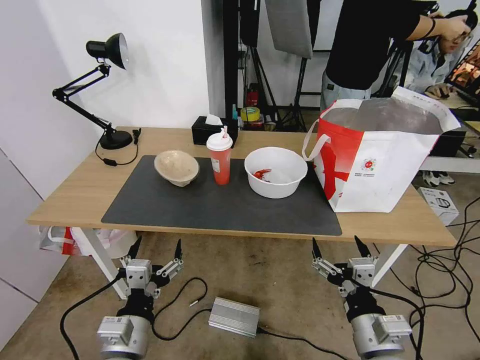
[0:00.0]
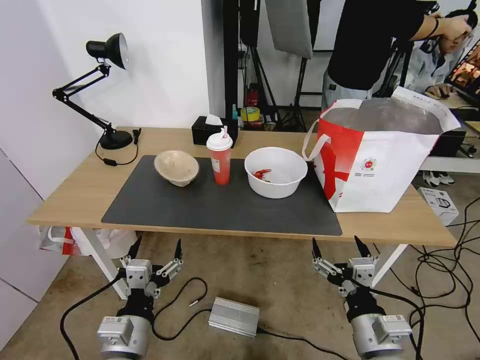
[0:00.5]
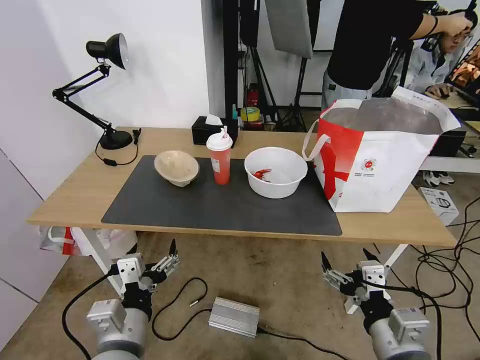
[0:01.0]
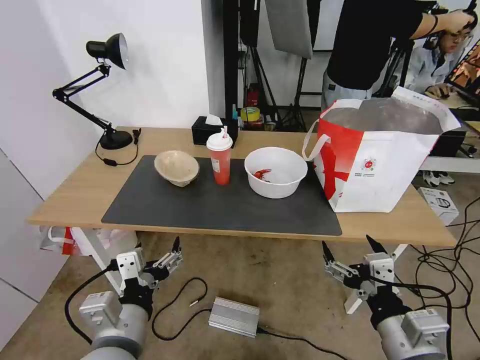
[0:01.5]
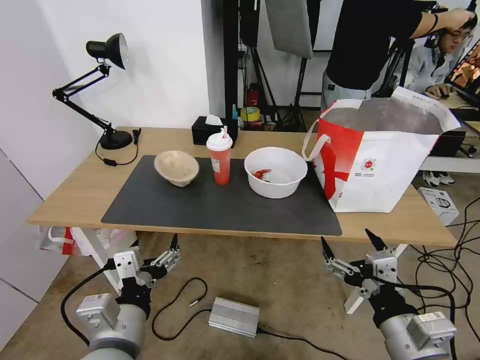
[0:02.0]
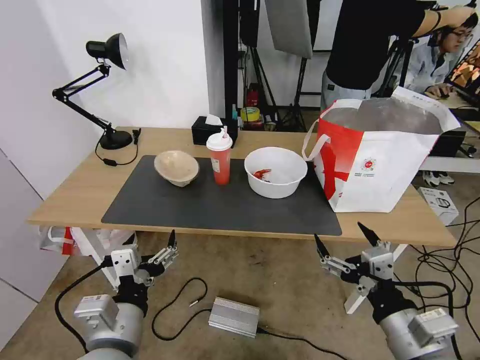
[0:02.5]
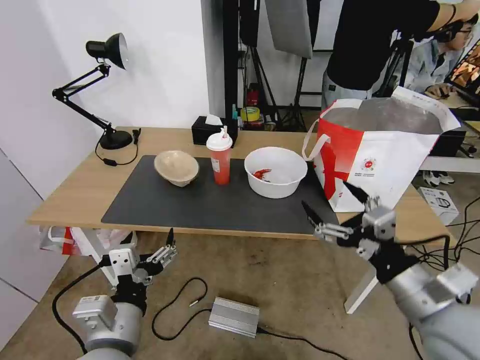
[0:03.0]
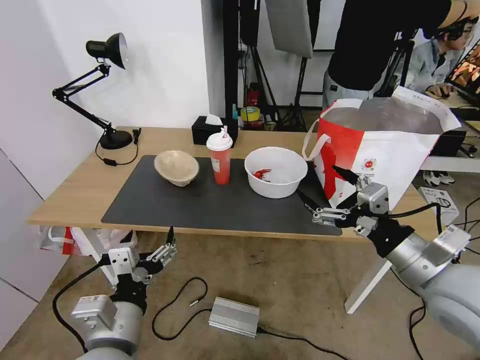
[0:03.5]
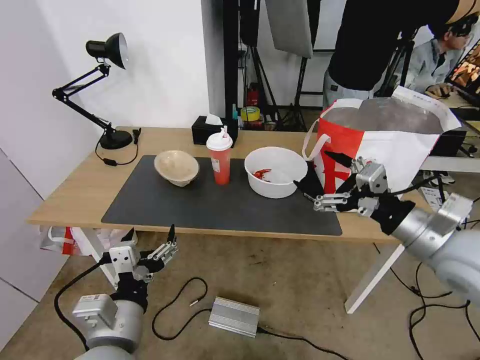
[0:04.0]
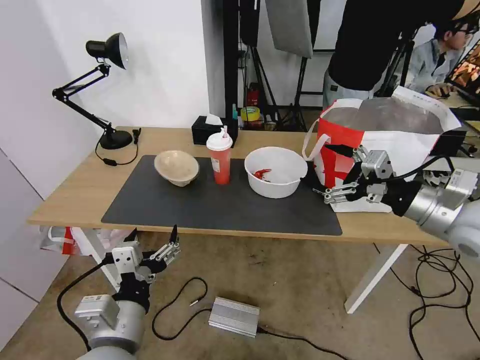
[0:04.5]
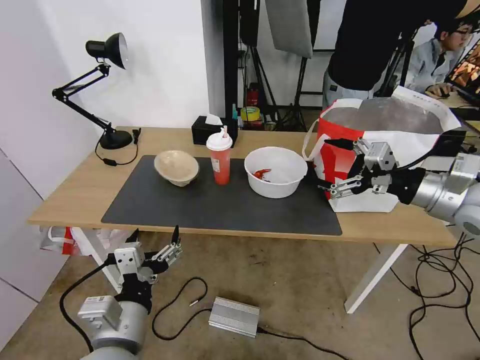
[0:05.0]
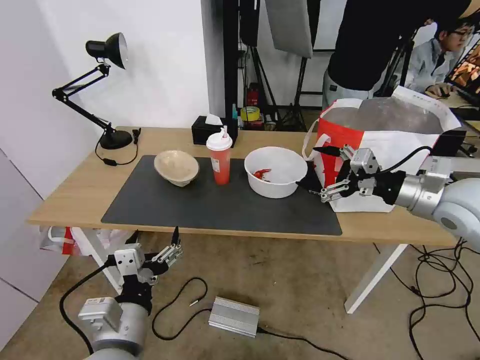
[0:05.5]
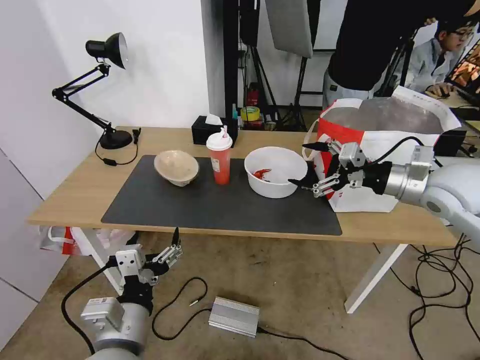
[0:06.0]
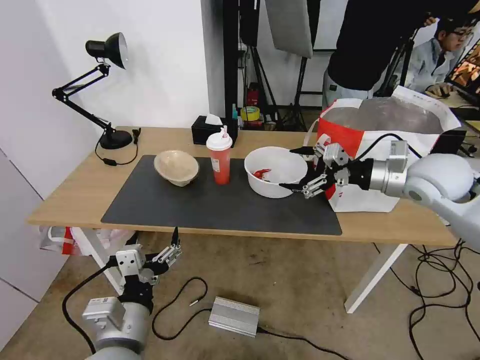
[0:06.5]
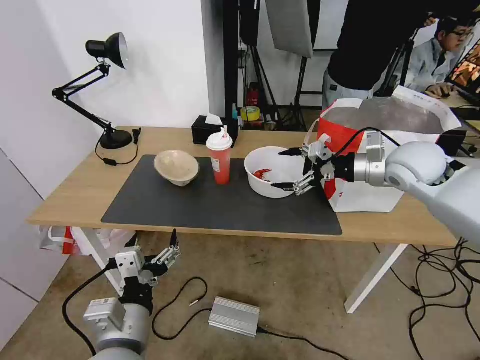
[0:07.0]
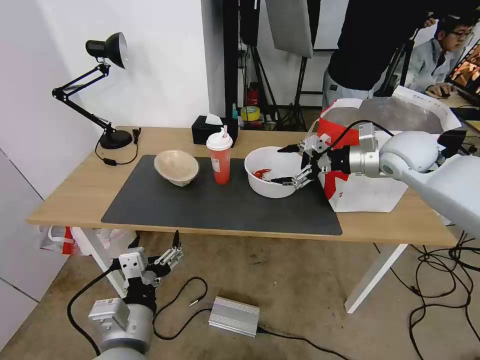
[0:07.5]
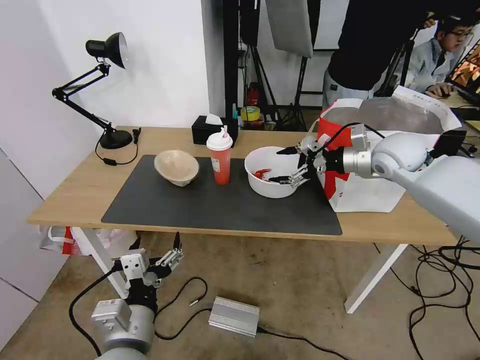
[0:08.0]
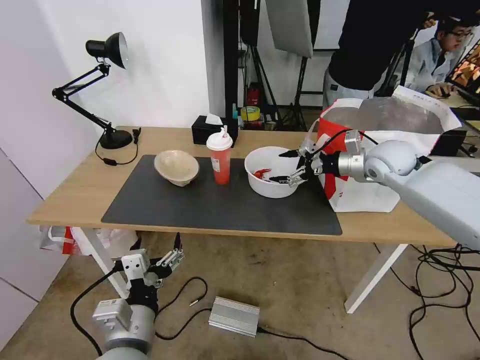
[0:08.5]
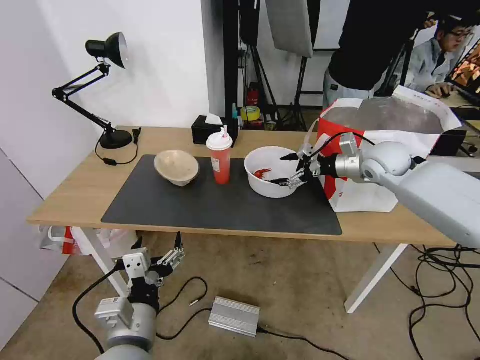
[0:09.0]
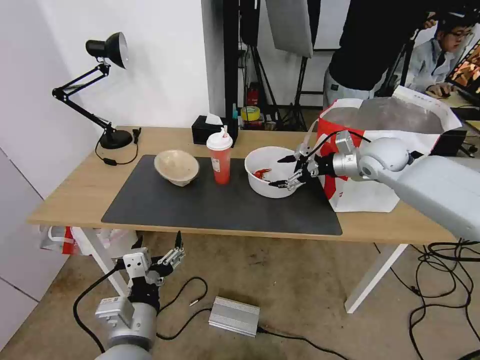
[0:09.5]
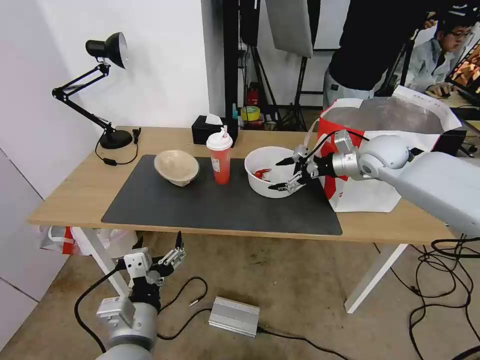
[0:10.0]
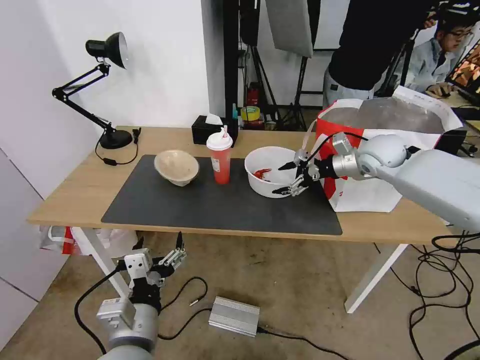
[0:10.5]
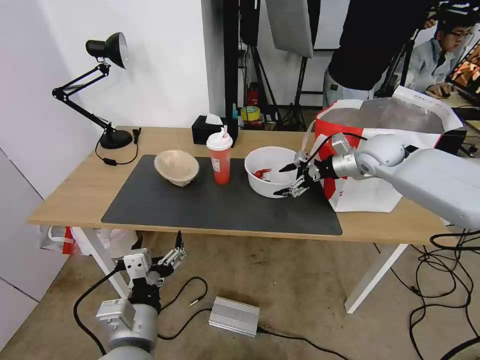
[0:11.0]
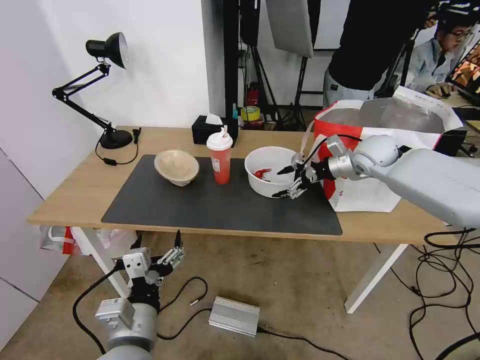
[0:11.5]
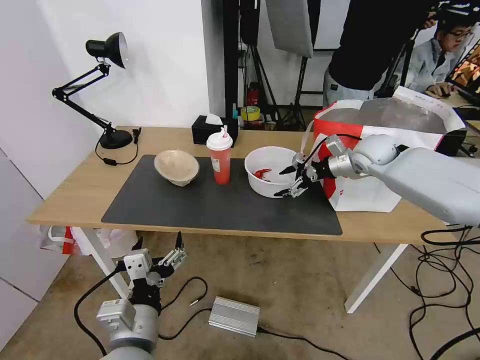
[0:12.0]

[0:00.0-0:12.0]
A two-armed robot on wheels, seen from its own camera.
Task of the whole recording: Pick up the trash from the table and place it into the takeout bag.
0:02.0 to 0:04.0: The right gripper is displaced forward, upward and to the right by about 20 cm.
0:04.0 to 0:06.0: The right gripper is displaced forward by about 10 cm.
0:06.0 to 0:08.0: The right gripper heads forward, covering roughly 10 cm.
0:08.0 to 0:10.0: The grippers make only small movements.
0:10.0 to 0:12.0: There are only small adjustments of the grippers.

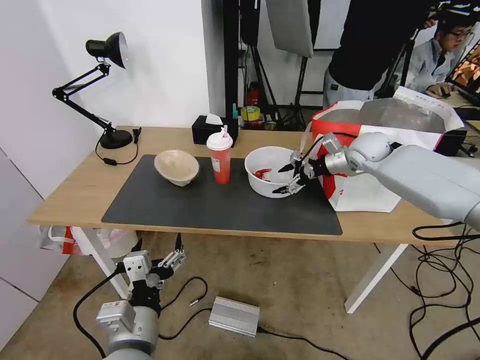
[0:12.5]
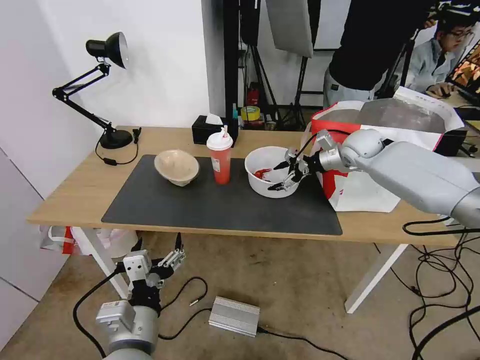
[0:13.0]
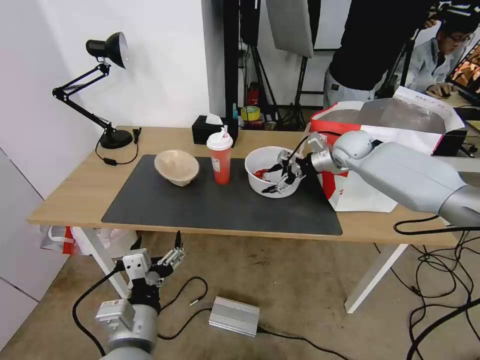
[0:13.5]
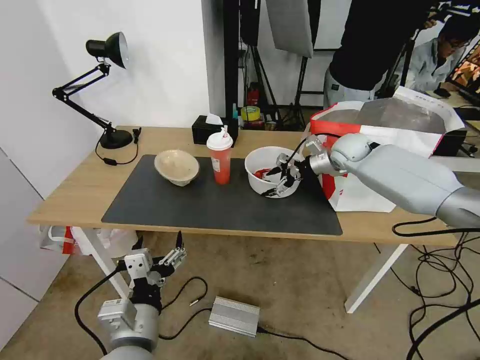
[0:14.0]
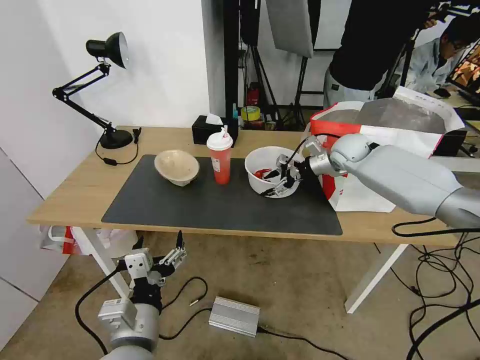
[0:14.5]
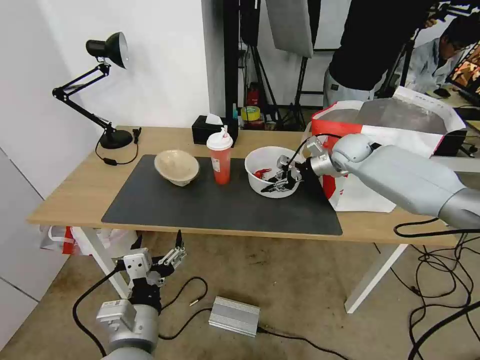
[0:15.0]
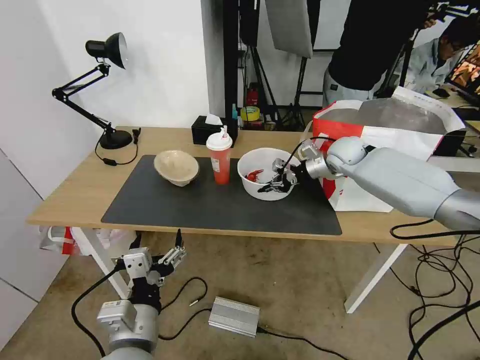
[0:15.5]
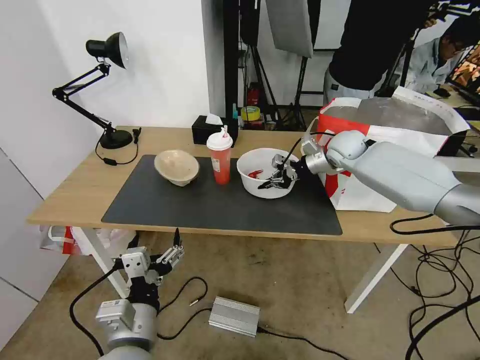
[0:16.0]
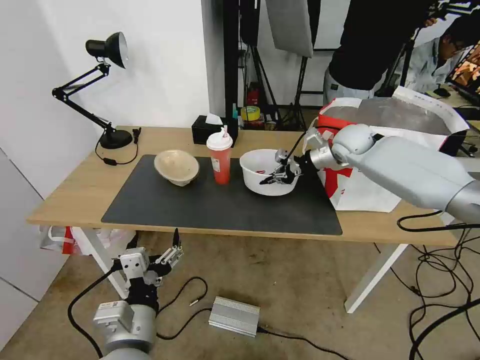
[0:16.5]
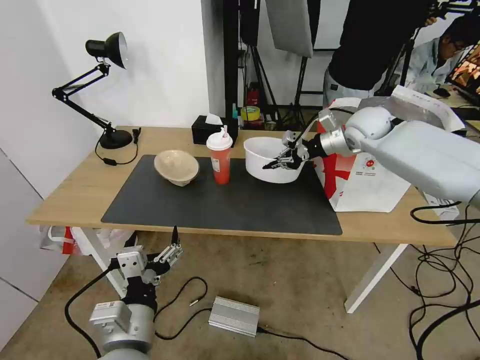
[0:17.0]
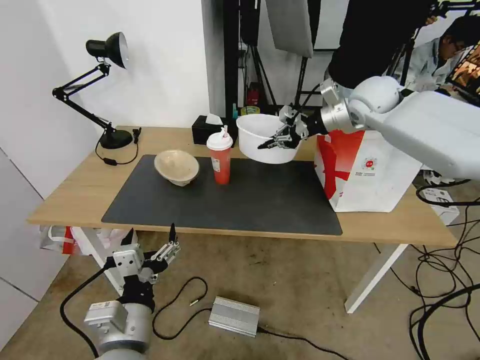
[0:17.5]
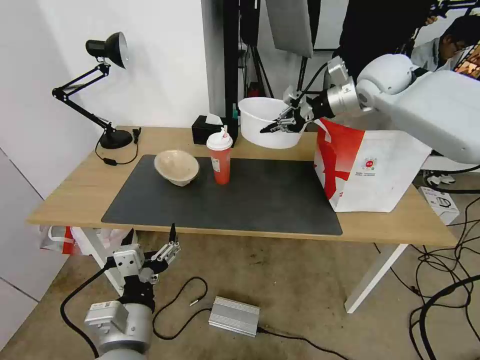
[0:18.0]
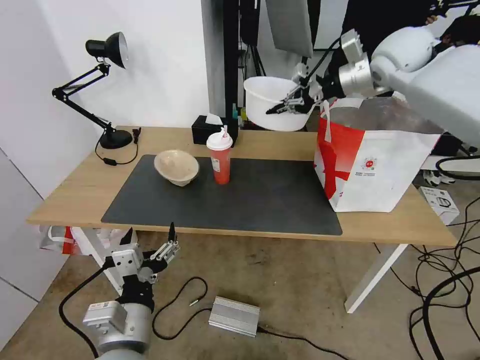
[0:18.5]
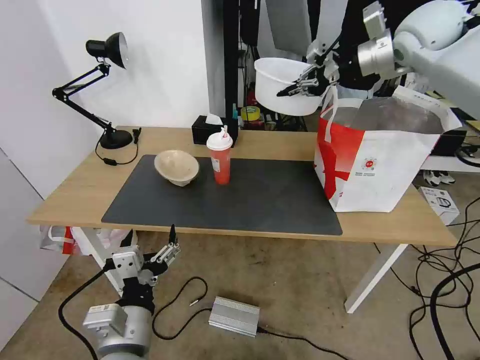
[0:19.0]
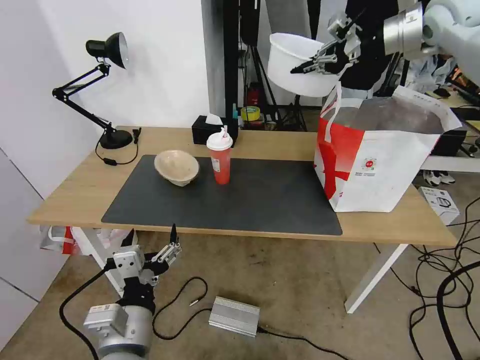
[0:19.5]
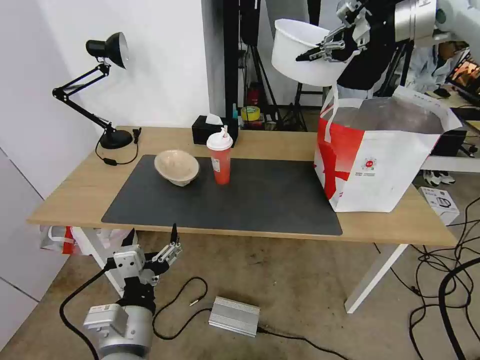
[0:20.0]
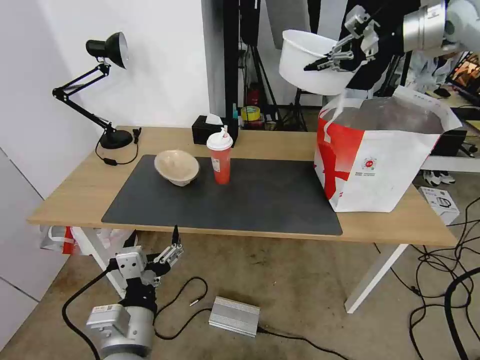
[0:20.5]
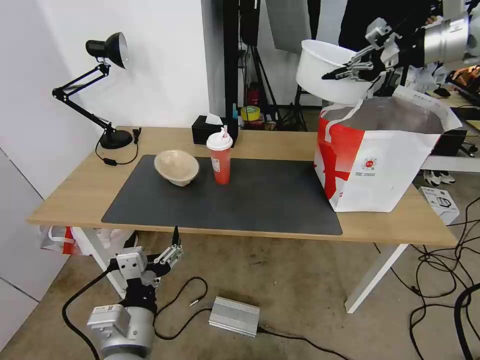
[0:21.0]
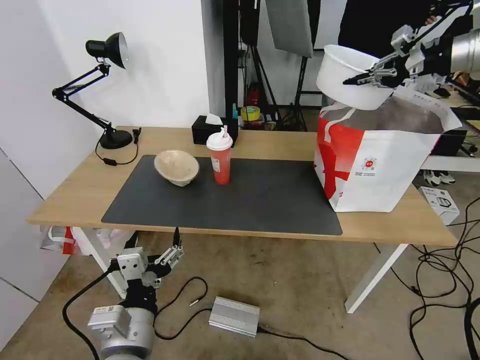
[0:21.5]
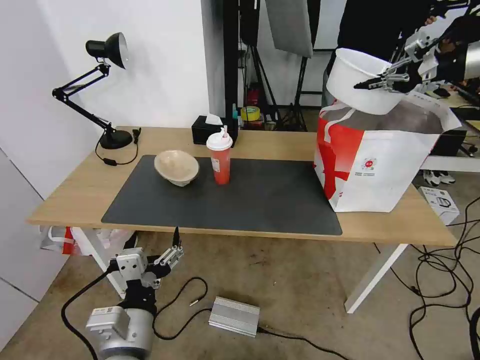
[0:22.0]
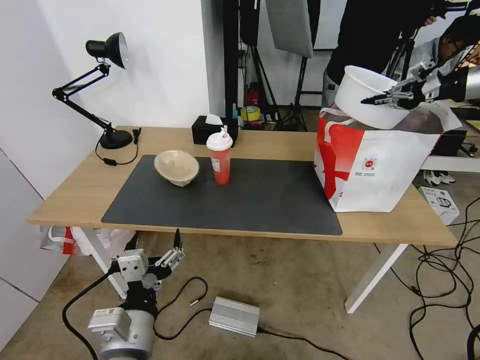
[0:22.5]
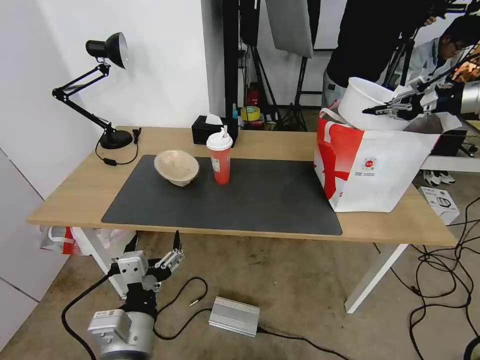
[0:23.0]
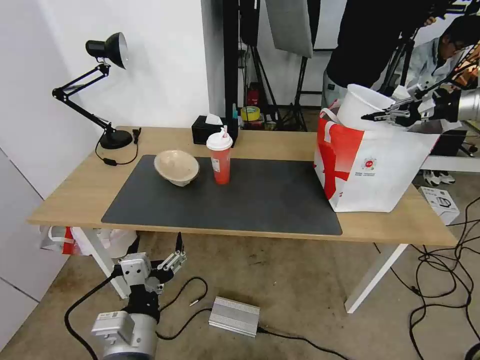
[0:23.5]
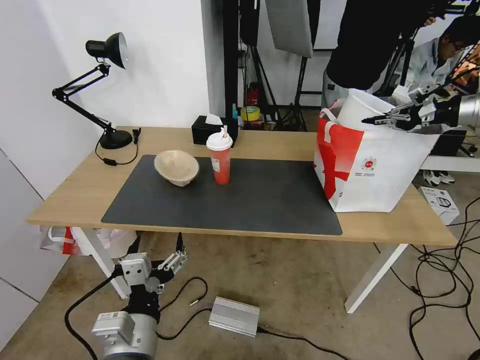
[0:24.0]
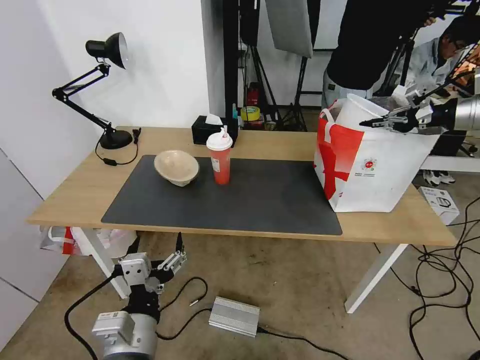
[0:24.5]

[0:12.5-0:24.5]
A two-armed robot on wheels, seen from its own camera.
Task of the whole recording: Pick up the trash from the table and place it into the takeout bag.
0:12.5 to 0:14.5: The grippers move only a little.
0:14.5 to 0:16.5: The right gripper closes.
0:16.5 to 0:18.5: The right gripper goes some 20 cm upward.
0:18.5 to 0:20.5: The right gripper is displaced to the right and upward by approximately 10 cm.
0:20.5 to 0:22.5: The right gripper shifts about 15 cm to the right and downward.
0:22.5 to 0:24.5: The right gripper is displaced downward by about 5 cm.

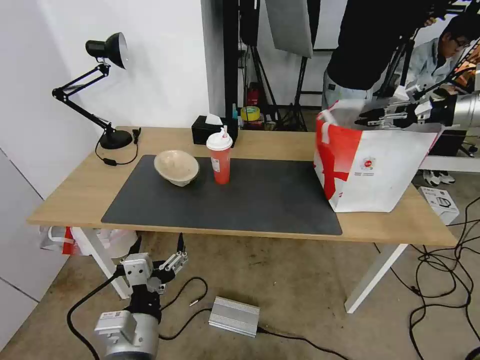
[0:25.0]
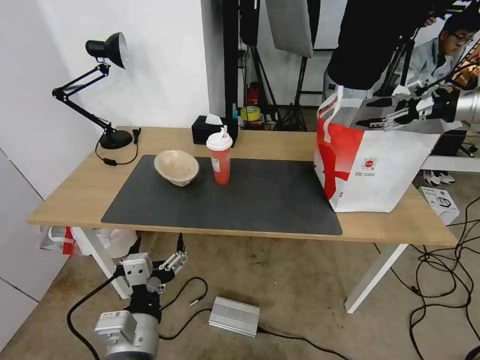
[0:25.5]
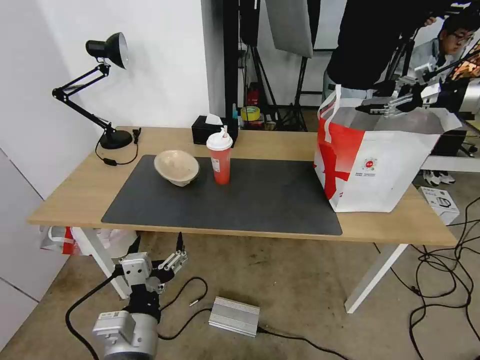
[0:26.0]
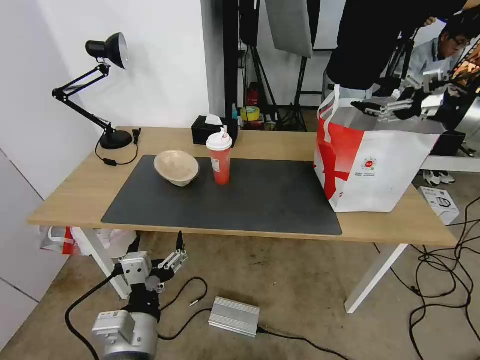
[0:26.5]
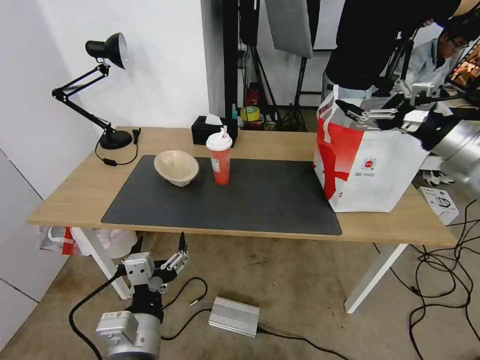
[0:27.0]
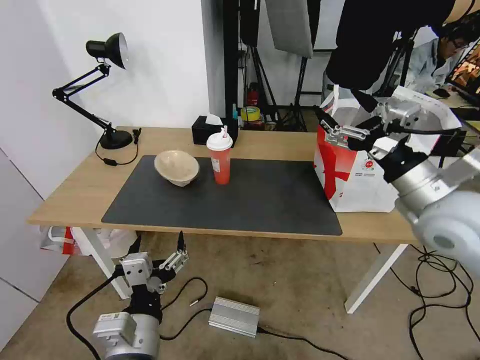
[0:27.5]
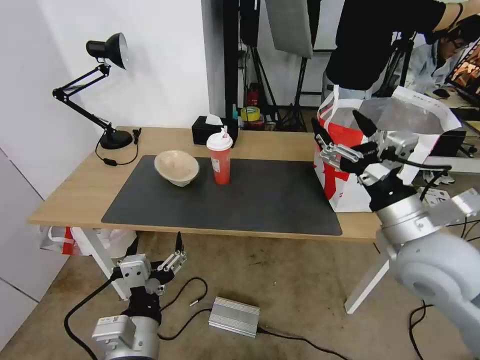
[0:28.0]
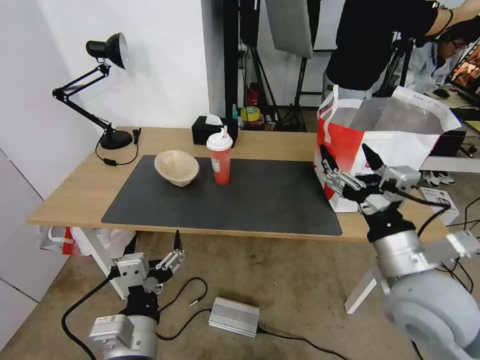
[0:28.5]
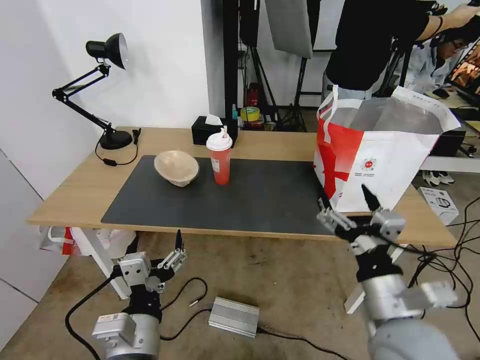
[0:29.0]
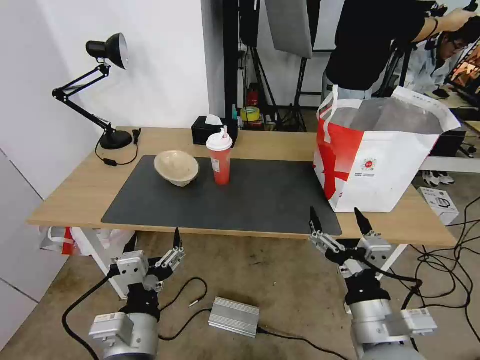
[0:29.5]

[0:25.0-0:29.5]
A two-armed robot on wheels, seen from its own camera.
Task of the whole recording: Pick up the trash from the table and place it into the takeout bag.
0:25.0 to 0:27.0: The right gripper travels backward and to the left by about 20 cm, and opens up.
0:27.0 to 0:29.5: The right gripper travels backward, to the left and downward by roughly 35 cm.
